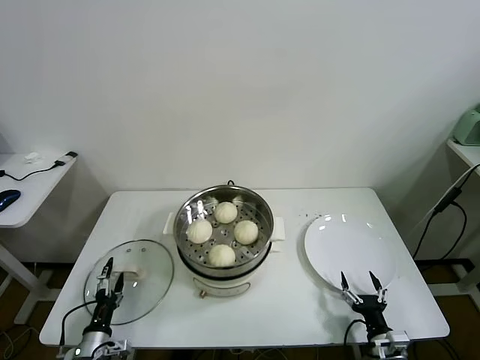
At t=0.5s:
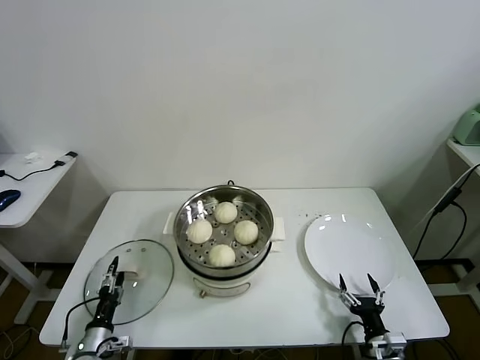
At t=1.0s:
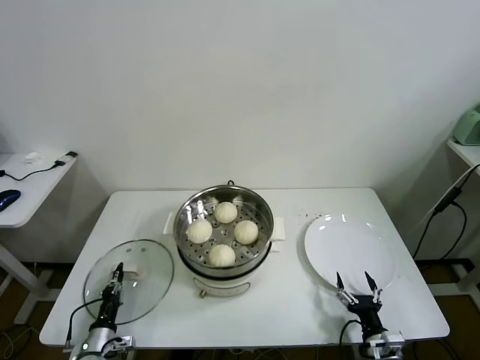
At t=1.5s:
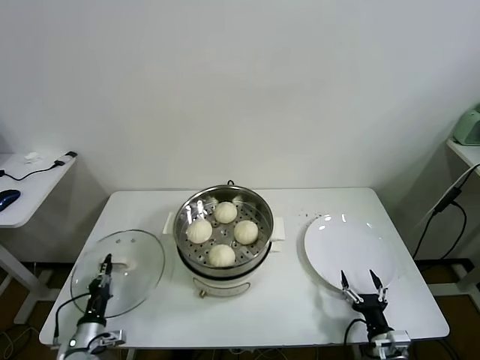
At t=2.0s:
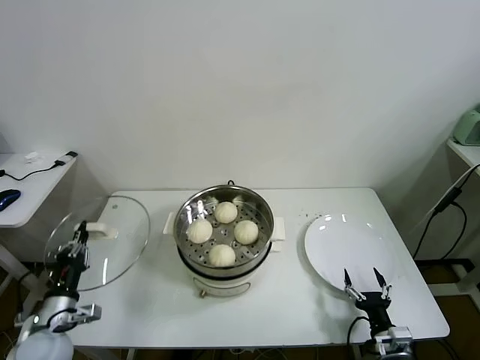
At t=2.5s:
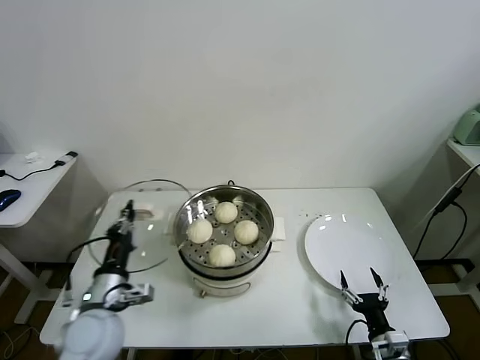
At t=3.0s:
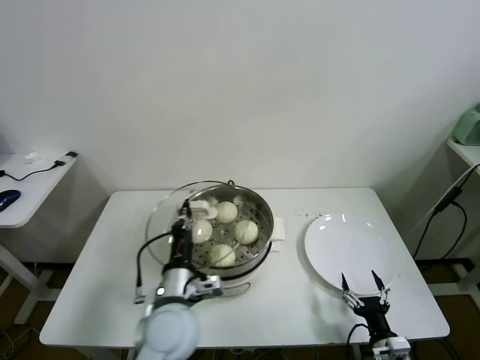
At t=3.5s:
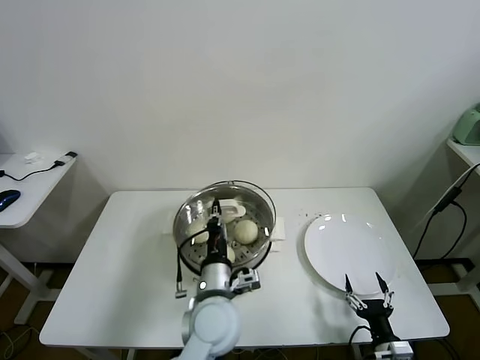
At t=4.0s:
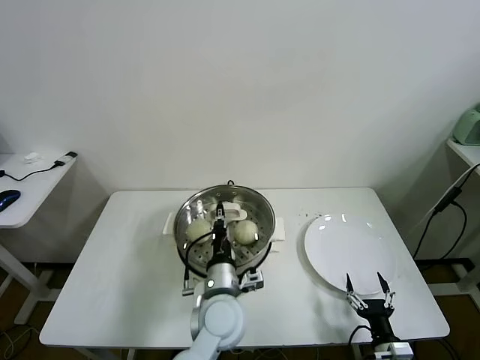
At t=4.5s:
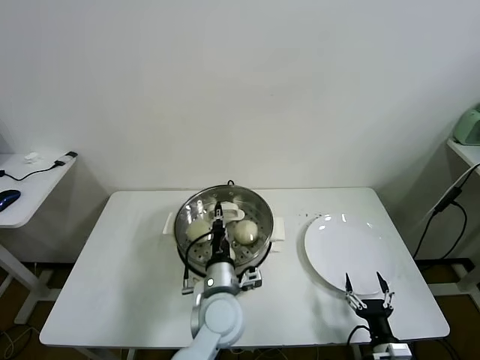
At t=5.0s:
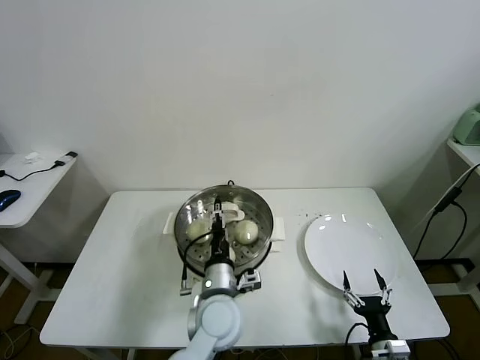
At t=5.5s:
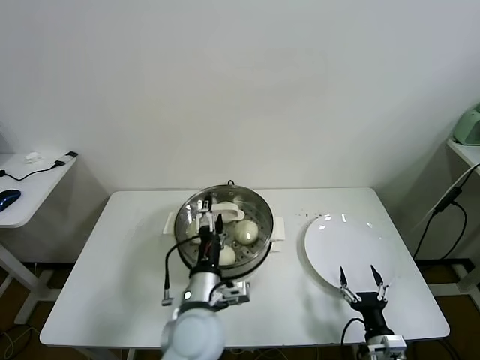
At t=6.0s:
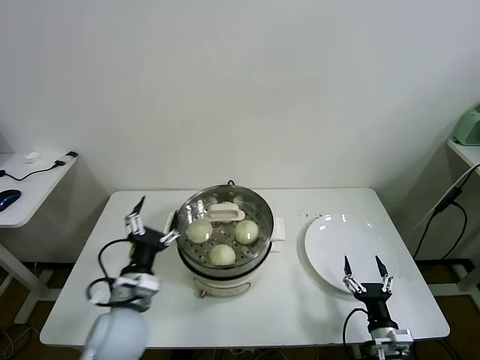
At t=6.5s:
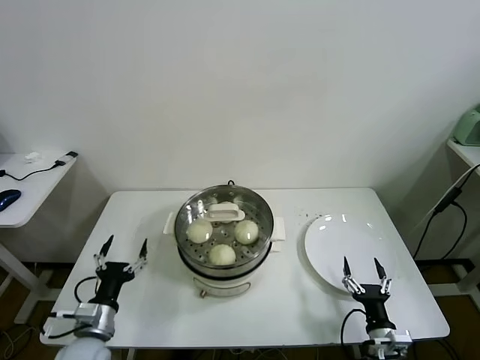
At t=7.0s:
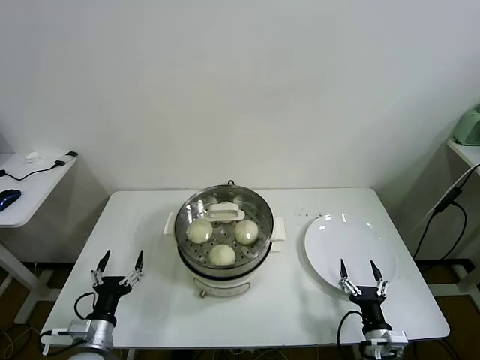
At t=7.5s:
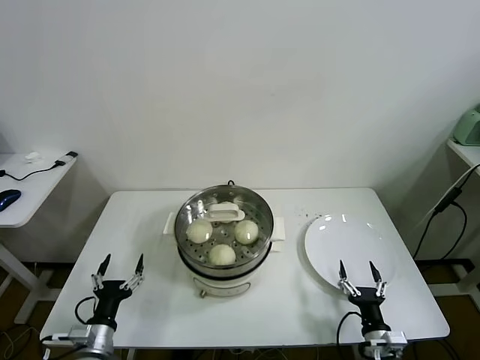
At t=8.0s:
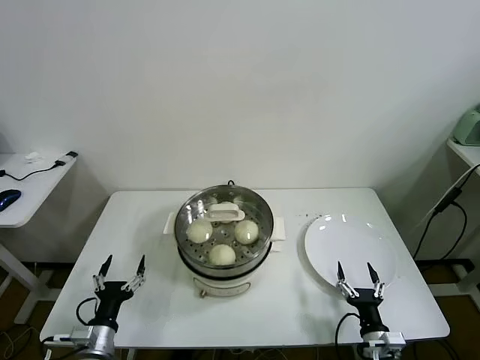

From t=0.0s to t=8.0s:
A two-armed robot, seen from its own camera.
Task of the whole recording: take steamed baozi put them in steamer.
Step, from t=1.0s to t=5.0s: Place the pot lid on the steamer with left gripper.
From t=0.0s to t=2.0s: The left gripper moves upward, about 15 cm, and closes its fingers.
From t=2.0s to t=4.0s: The left gripper heads to the right, covering some 35 cm.
From t=4.0s to t=6.0s: The left gripper heads to the left, covering about 15 cm, and opens up.
From t=6.0s to t=8.0s: The left gripper moves downward, to the left and backward, some 20 cm.

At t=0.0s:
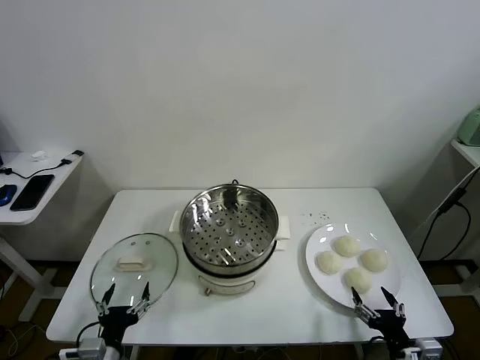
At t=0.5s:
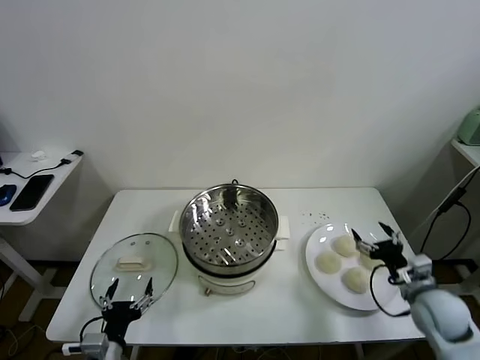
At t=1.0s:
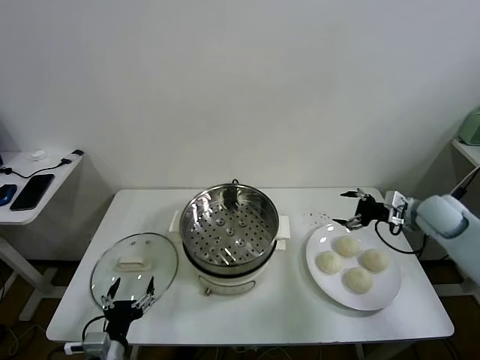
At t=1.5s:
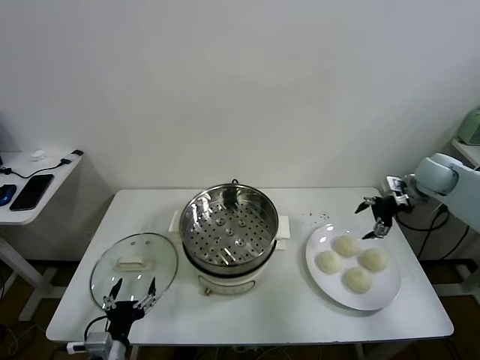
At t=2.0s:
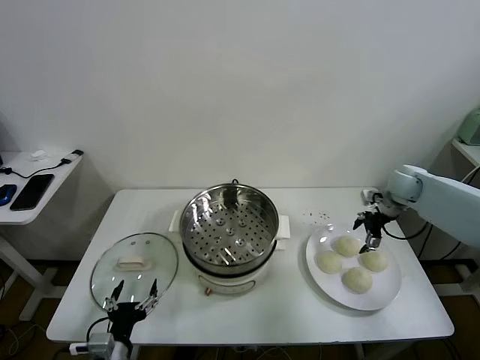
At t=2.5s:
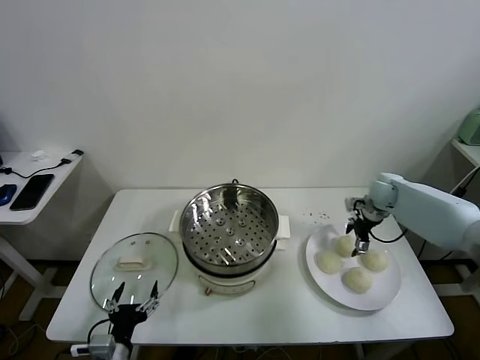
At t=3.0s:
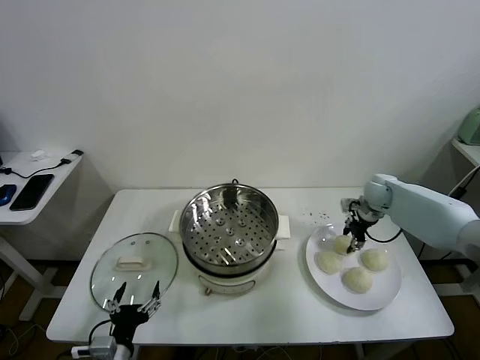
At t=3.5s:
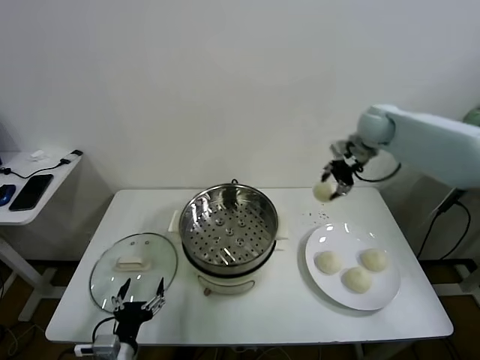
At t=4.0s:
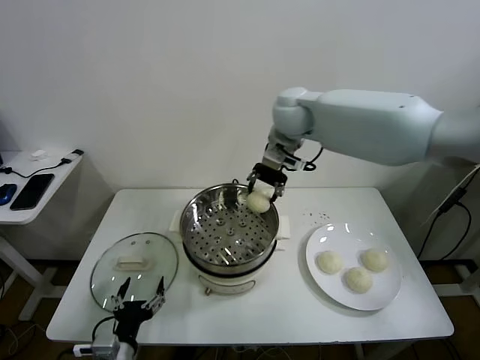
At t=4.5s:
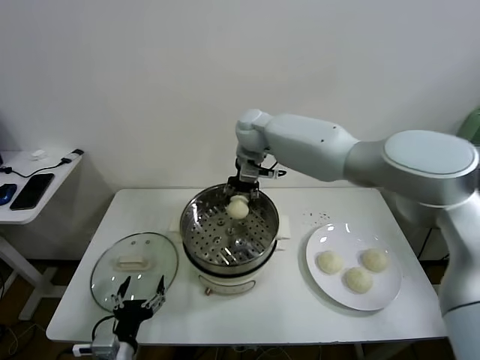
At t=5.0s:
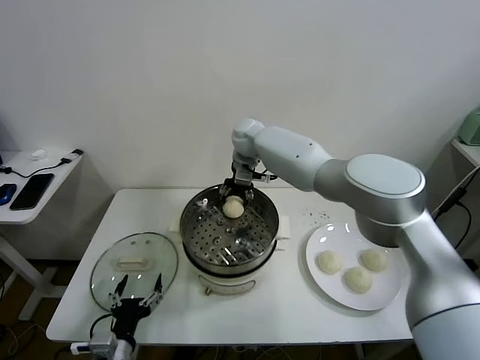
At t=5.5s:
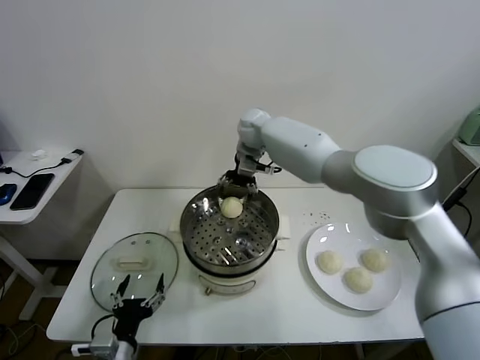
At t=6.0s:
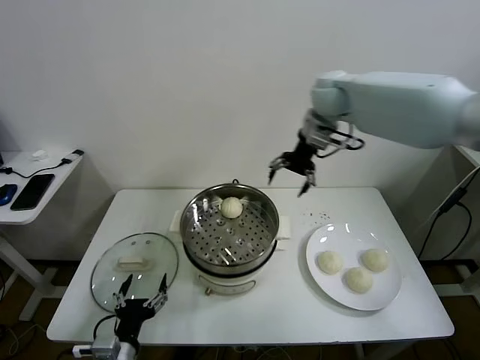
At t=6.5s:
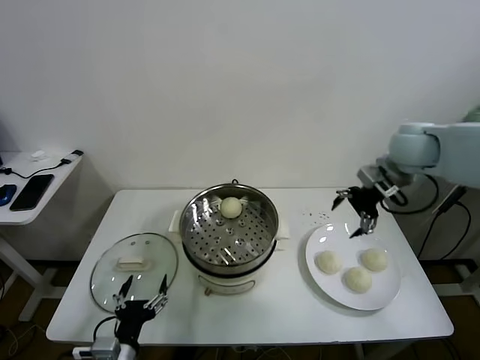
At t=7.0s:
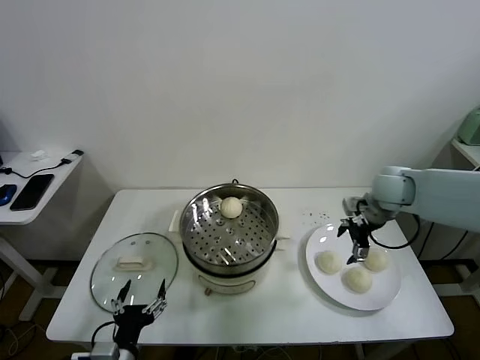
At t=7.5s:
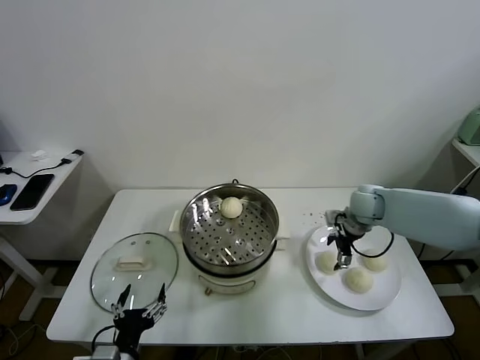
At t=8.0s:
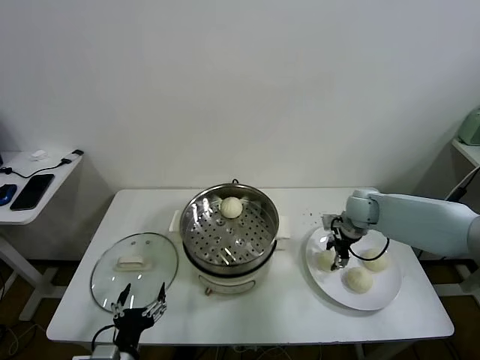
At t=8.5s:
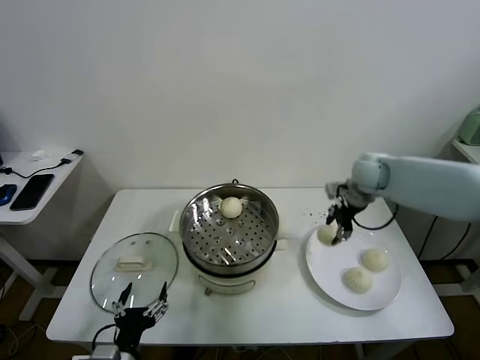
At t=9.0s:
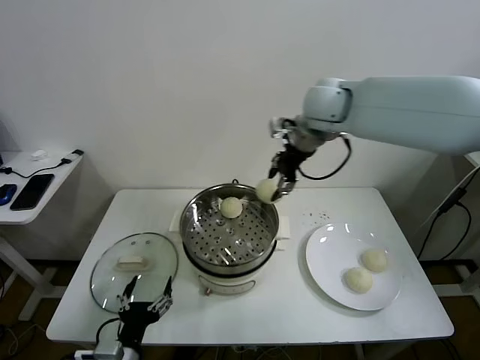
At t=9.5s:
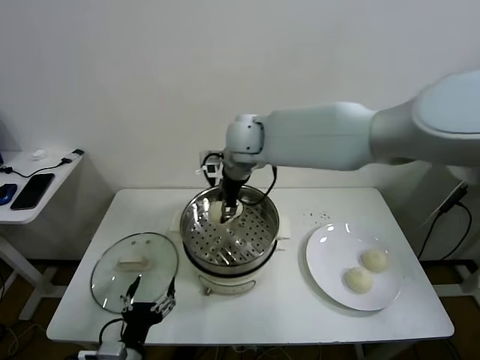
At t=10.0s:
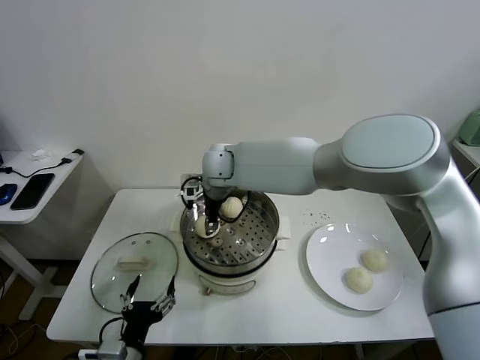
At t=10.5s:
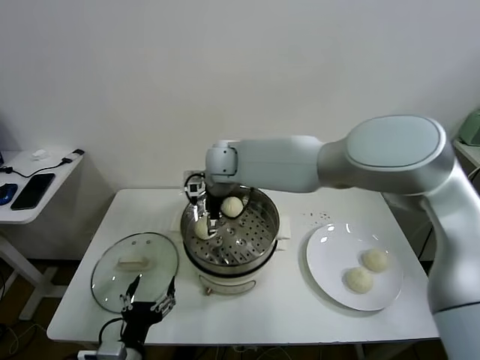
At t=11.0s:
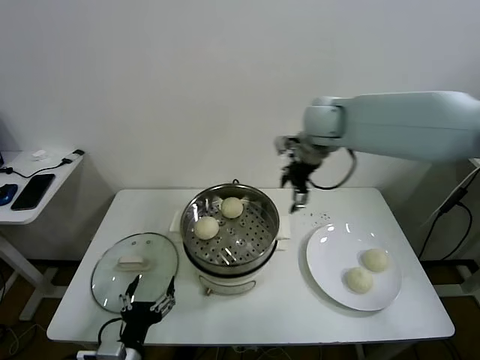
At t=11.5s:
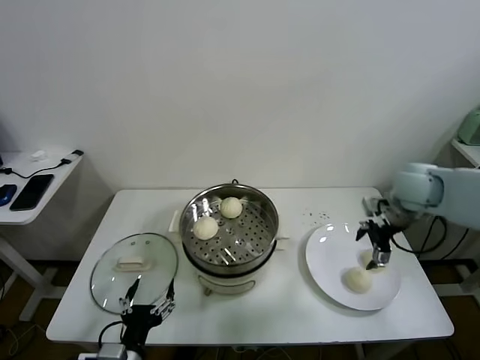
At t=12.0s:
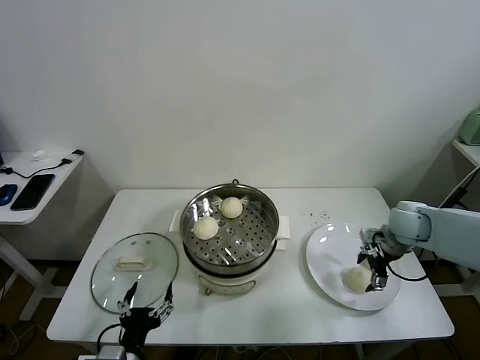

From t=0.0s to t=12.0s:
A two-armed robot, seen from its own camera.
Task of the whole recording: take steamed baozi put them in steamer.
Step, from t=0.0s to t=2.5s: Grasp the baozi in the plate with right gripper.
Step, from t=3.0s to t=5.0s: Place the baozi on the steamer with right gripper.
Step, from t=5.5s to t=7.5s: Grasp the baozi in the plate with right gripper.
Step, from t=8.0s to t=10.5s: Place the baozi on the steamer with right gripper.
From t=2.0s to t=4.0s: The right gripper shifts some 40 cm to the left and upward, and closes.
From t=4.0s to t=6.0s: The right gripper travels to the right by about 15 cm, and opens.
From t=6.0s to t=8.0s: The right gripper moves downward, roughly 25 cm, and closes its fingers.
From t=8.0s to t=10.0s: The right gripper travels to the left by some 35 cm.
From t=10.0s to t=12.0s: The right gripper heads to the right, covering roughly 40 cm, and opens.

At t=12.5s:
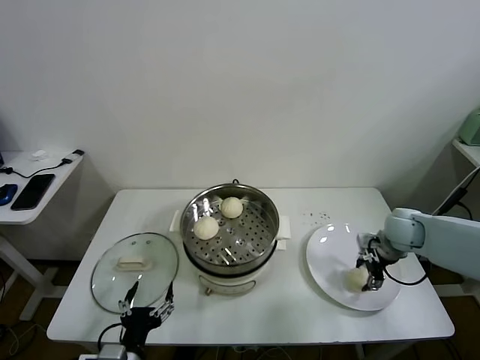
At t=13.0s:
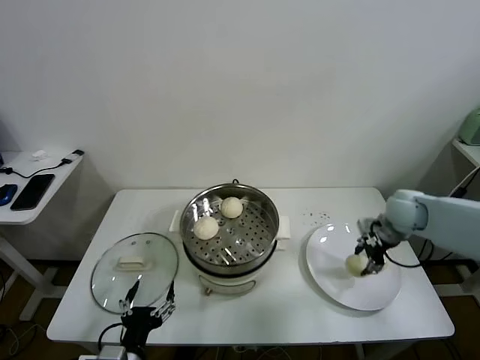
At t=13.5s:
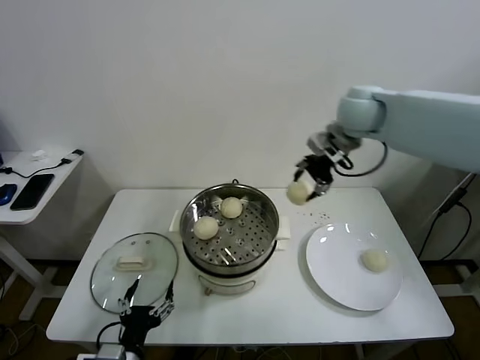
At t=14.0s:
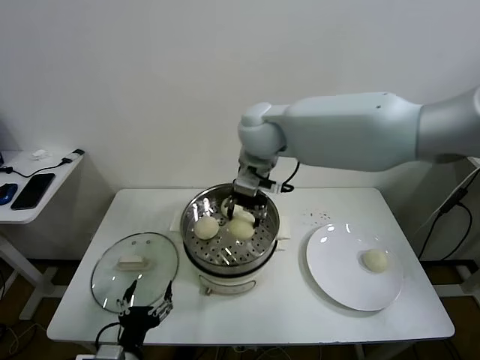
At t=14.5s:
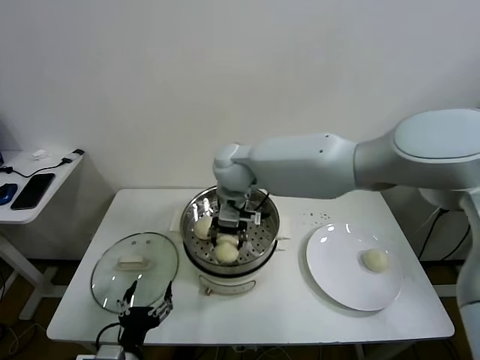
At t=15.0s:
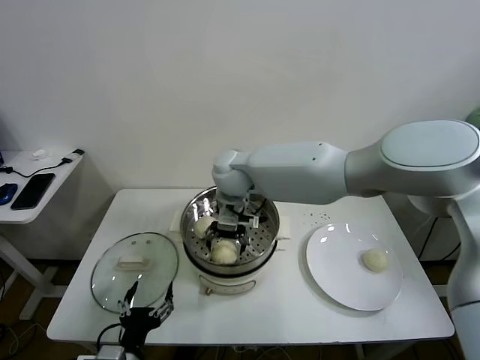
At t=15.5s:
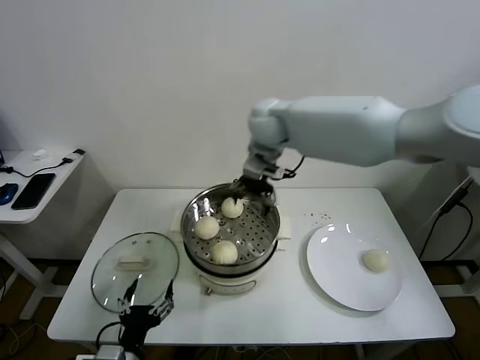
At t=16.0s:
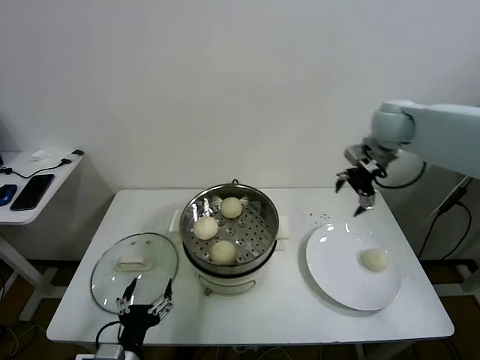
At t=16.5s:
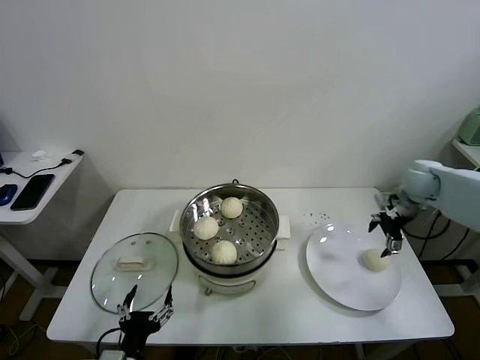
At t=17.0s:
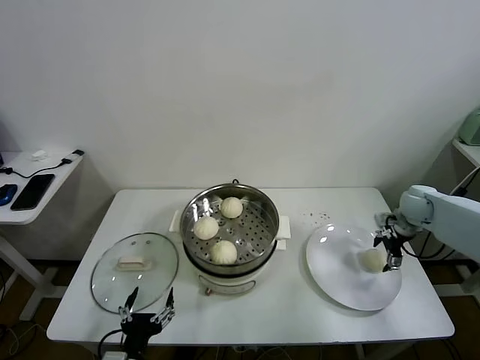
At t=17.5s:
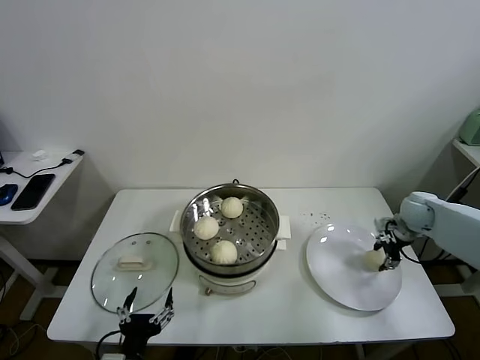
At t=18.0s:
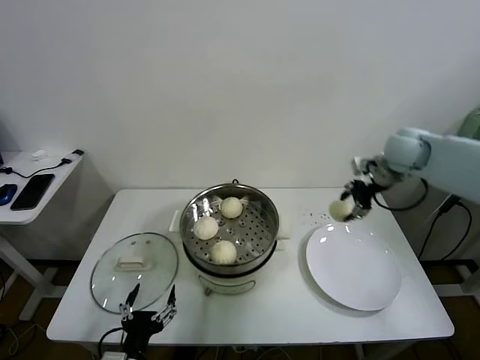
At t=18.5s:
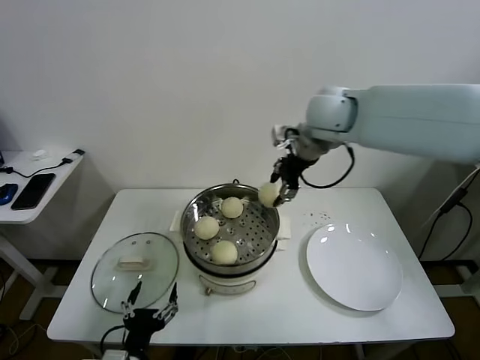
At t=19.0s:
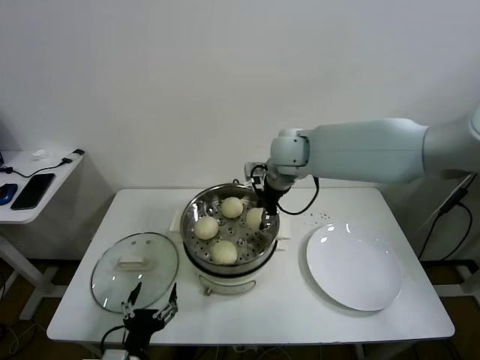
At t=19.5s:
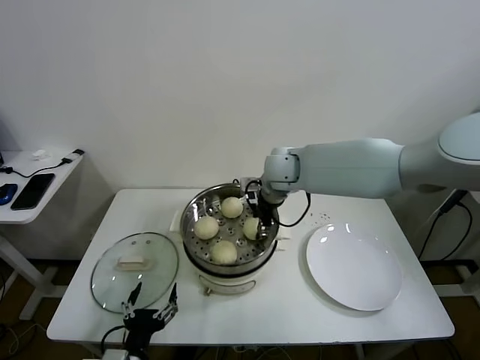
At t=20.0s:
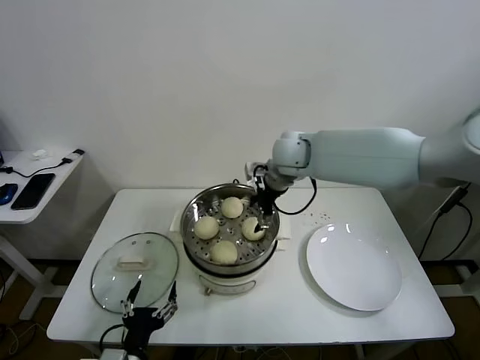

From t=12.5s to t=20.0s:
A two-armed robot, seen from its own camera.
Task of the whole recording: take steamed baozi put them in steamer.
Step, from t=13.0s to t=14.5s: Place the baozi on the steamer with right gripper.
Step, from t=15.0s to t=17.0s: Grasp the baozi in the plate with right gripper.
Step, from t=17.5s to t=19.5s: Place the baozi on the steamer with right gripper.
From t=12.5s to t=14.5s: The right gripper shifts approximately 40 cm to the left.
From t=14.5s to t=16.5s: The right gripper moves to the right, about 50 cm, and opens.
From t=16.5s to t=18.0s: The right gripper goes approximately 15 cm upward and to the left, and closes its fingers.
From t=18.0s to t=20.0s: The right gripper travels to the left by approximately 20 cm, and opens.
